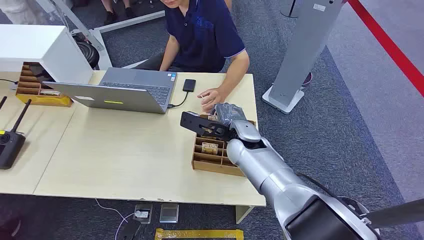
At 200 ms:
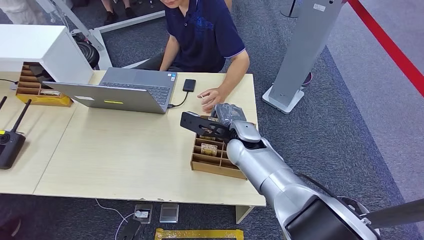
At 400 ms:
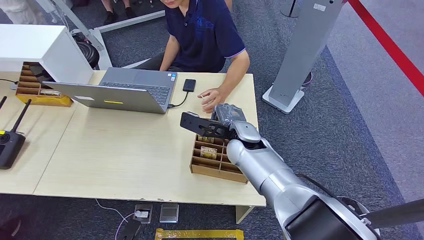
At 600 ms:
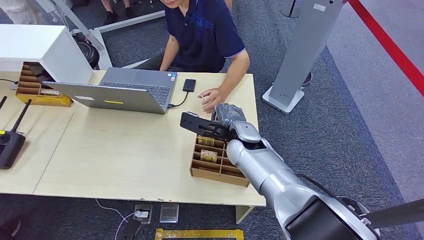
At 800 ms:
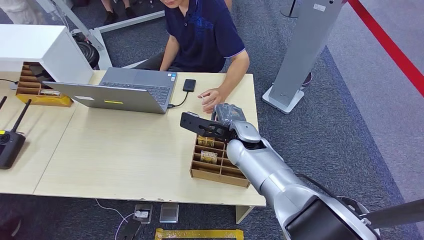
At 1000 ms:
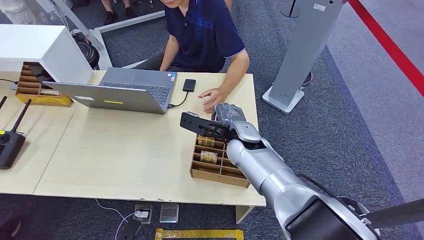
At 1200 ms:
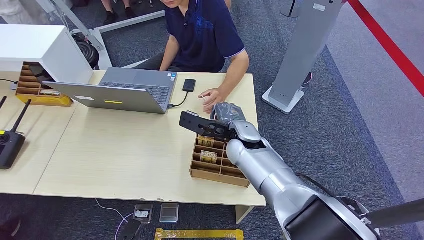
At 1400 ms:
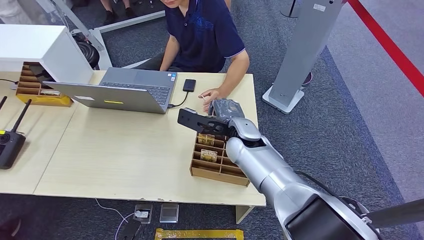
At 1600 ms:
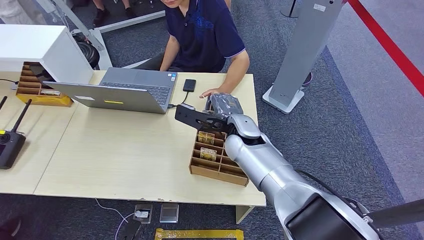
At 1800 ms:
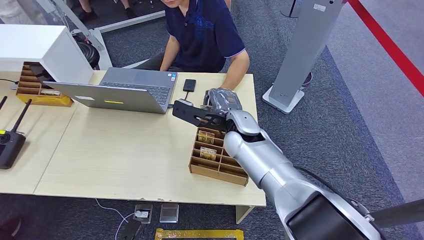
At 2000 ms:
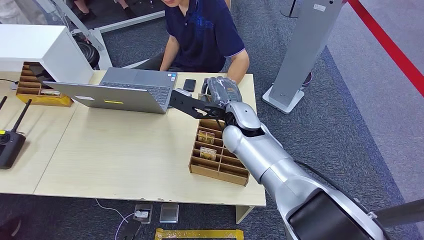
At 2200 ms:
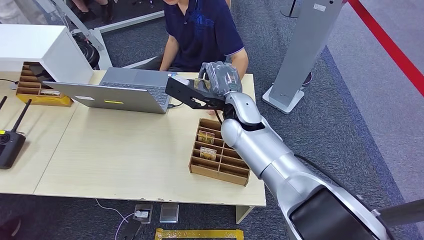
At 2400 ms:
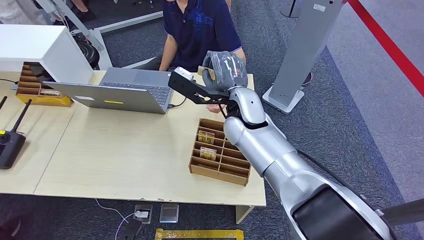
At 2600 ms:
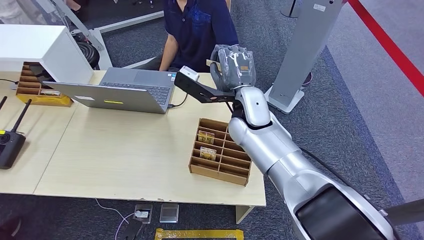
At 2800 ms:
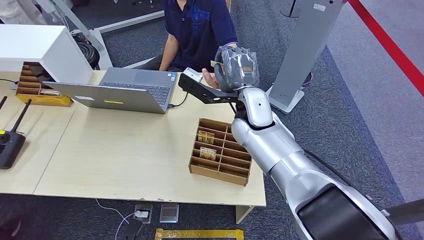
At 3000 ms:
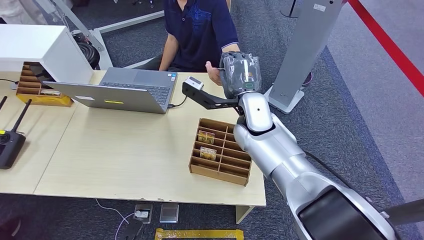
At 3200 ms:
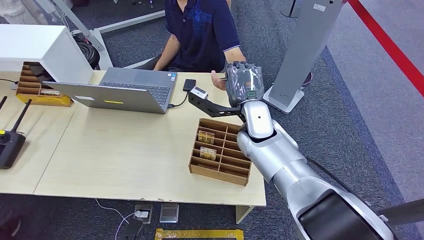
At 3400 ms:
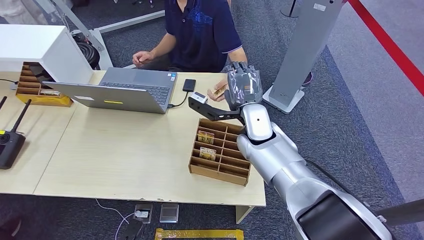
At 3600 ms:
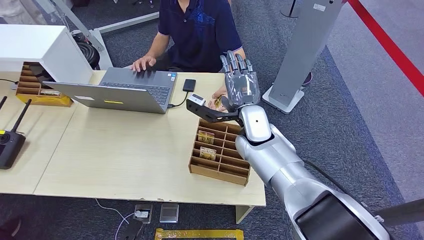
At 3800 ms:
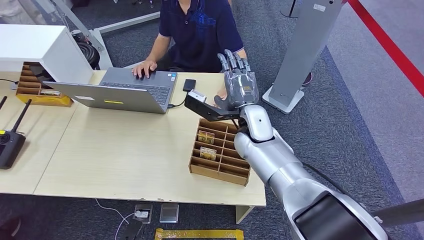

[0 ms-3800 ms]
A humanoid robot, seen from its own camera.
Task of the whole recording: Pick up the card and hand it over to the target person.
Step, 0 ms to 2200 ms: Pick up the key card from the card box.
Step, 3000 ms to 3800 ms: Hand the key card to the target.
1200 ms to 2600 ms: The right hand moves upward, about 5 cm.

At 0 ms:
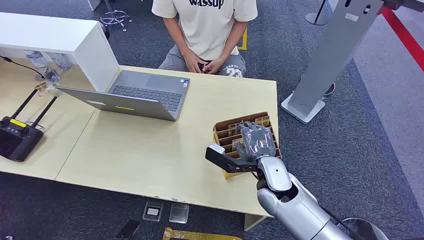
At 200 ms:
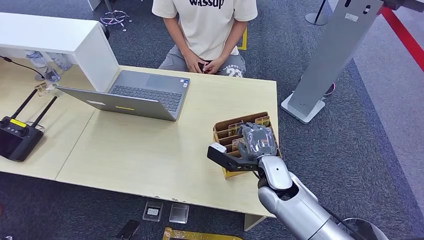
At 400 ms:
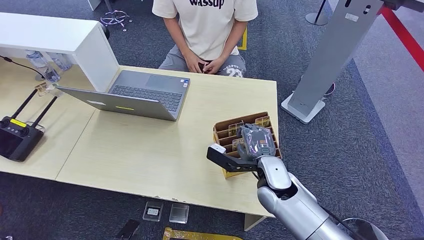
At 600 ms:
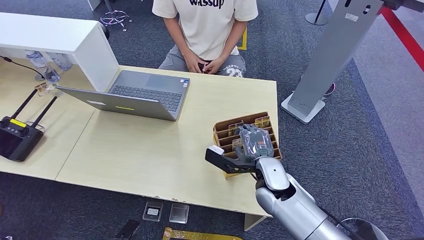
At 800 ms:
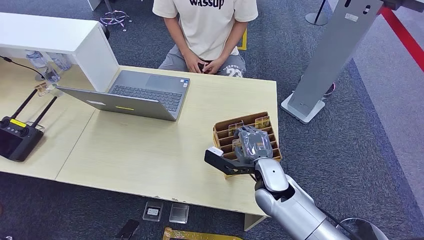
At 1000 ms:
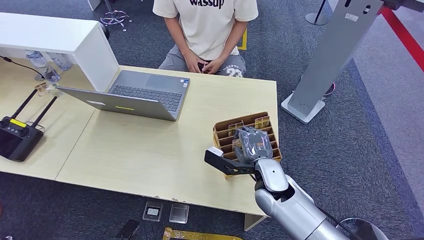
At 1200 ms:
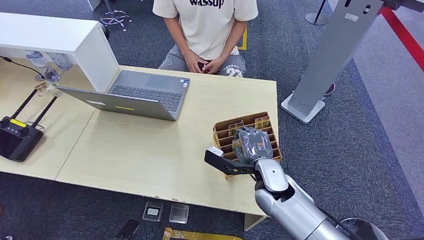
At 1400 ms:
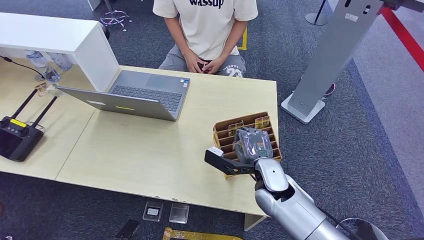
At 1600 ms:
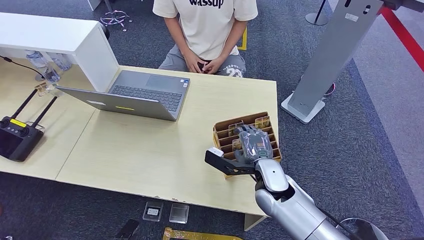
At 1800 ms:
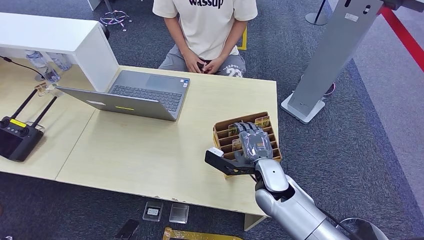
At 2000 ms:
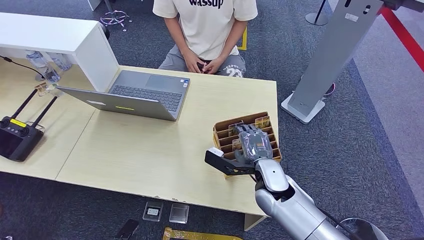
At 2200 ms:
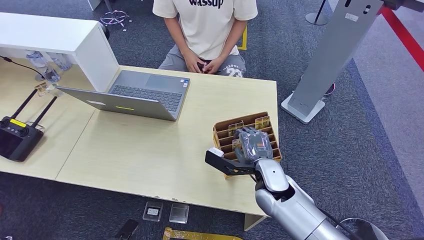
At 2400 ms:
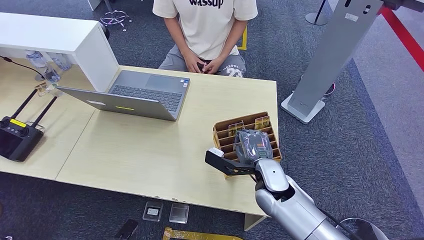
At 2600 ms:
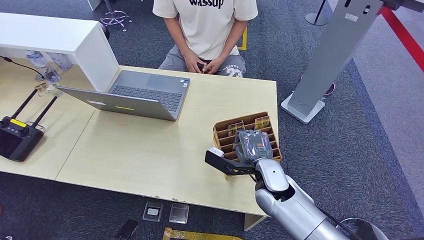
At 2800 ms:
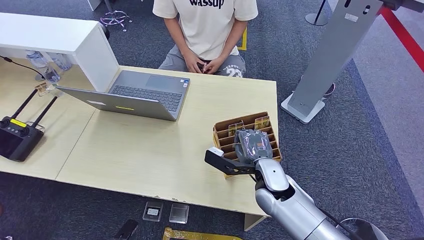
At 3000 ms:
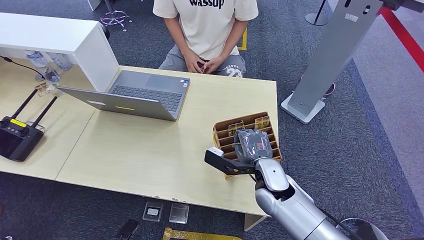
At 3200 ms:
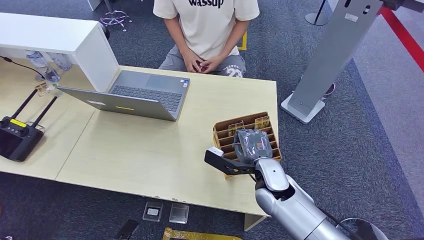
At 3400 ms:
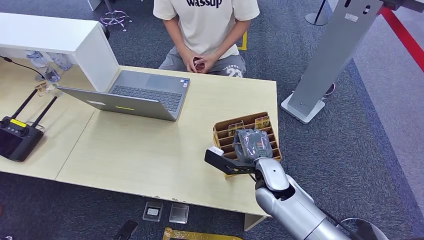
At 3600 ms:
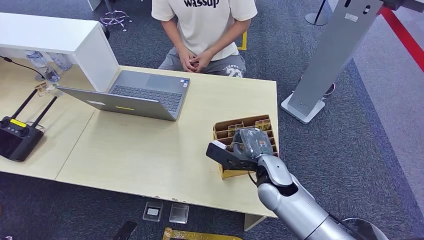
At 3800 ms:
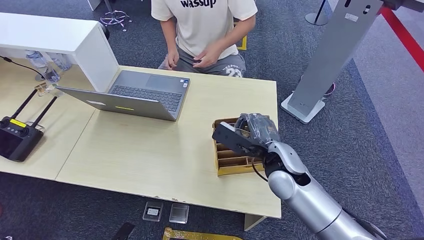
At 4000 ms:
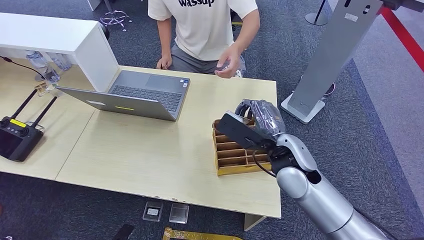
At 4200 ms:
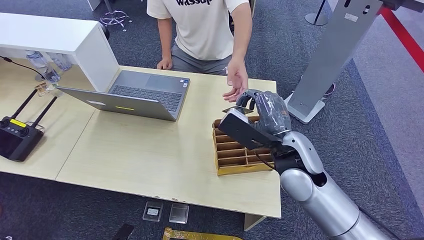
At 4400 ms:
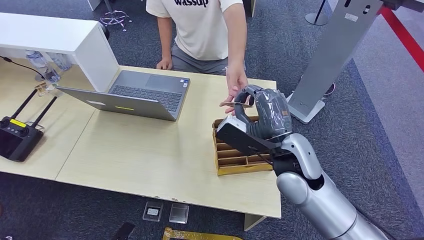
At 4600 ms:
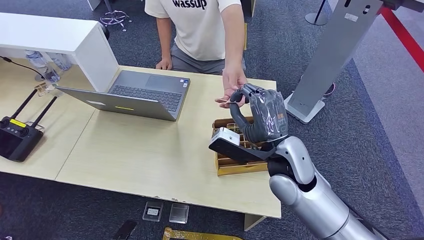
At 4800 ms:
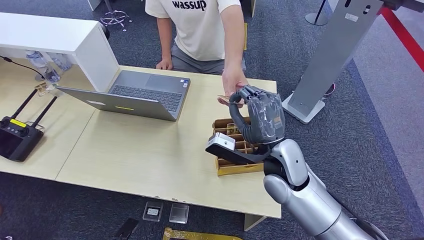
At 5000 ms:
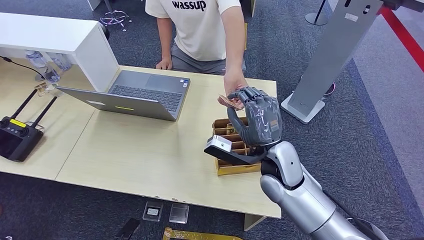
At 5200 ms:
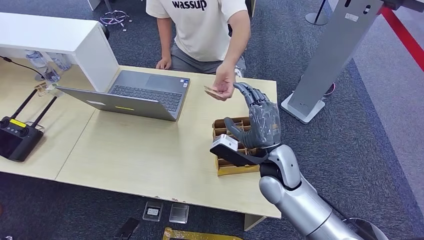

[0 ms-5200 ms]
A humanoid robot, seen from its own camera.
Task of the whole recording: Pick up the card and hand it over to the target person.
Step, 0 ms to 3800 ms: Pick up the key card from the card box.
Step, 4200 ms to 5200 ms: Hand the key card to the target.
1800 ms to 3400 ms: The hands stay close to where they were, moving slightly.
3400 ms to 5200 ms: The right hand goes upward and returns, approximately 10 cm each way.
